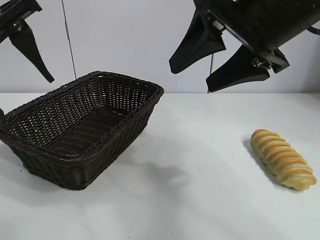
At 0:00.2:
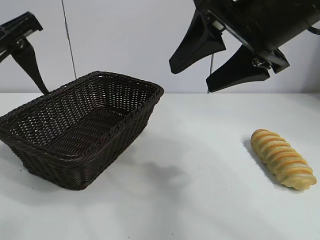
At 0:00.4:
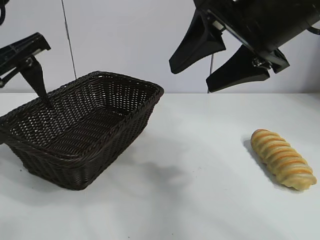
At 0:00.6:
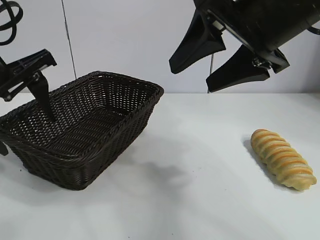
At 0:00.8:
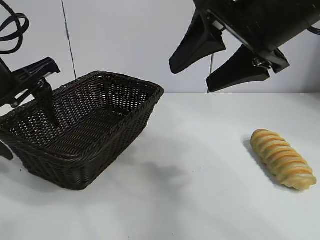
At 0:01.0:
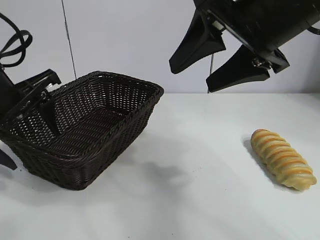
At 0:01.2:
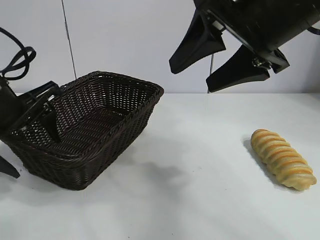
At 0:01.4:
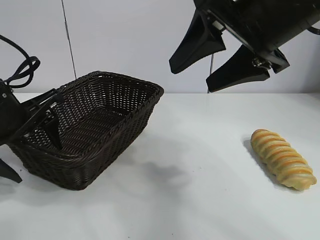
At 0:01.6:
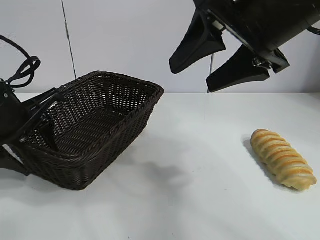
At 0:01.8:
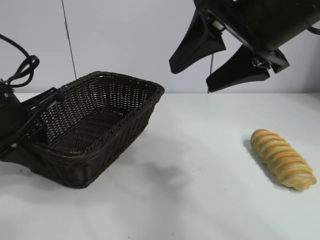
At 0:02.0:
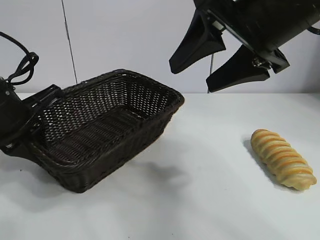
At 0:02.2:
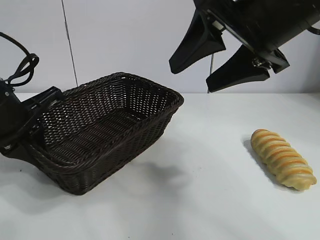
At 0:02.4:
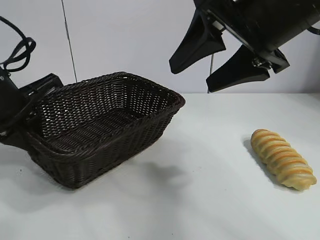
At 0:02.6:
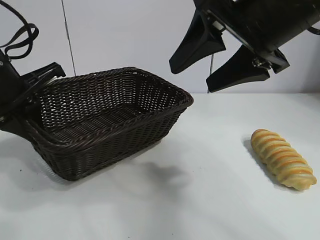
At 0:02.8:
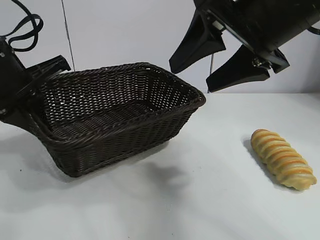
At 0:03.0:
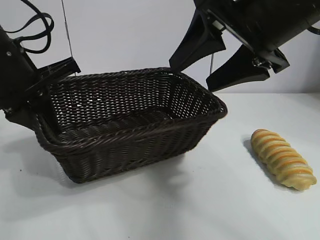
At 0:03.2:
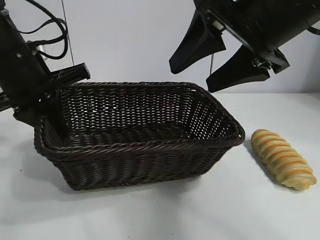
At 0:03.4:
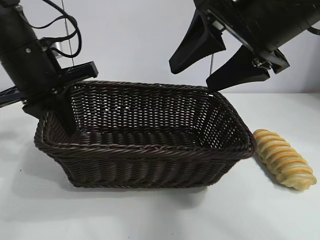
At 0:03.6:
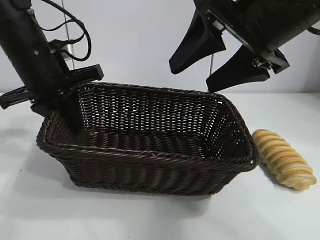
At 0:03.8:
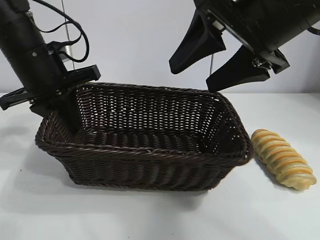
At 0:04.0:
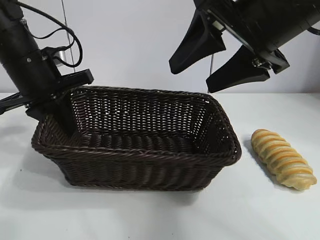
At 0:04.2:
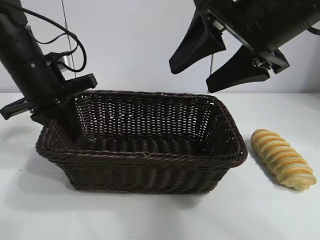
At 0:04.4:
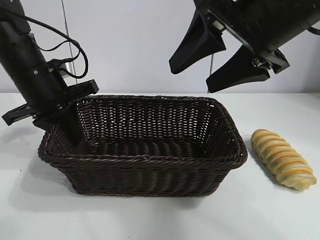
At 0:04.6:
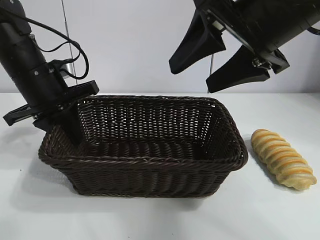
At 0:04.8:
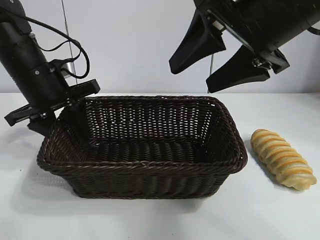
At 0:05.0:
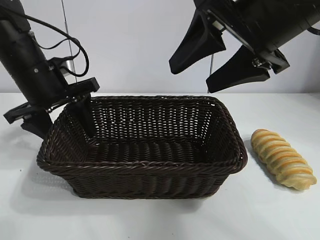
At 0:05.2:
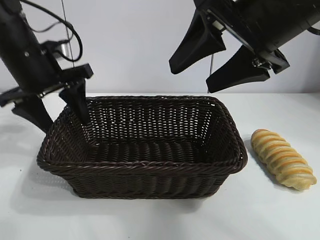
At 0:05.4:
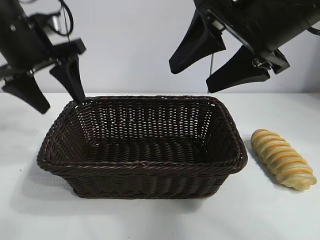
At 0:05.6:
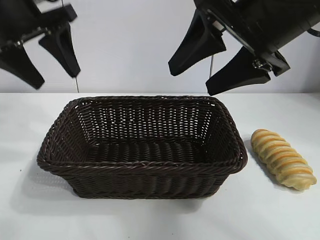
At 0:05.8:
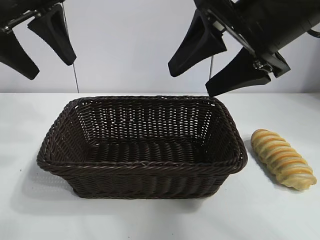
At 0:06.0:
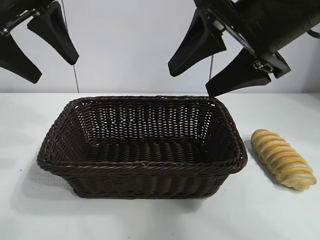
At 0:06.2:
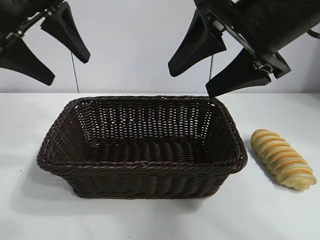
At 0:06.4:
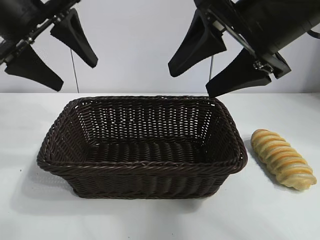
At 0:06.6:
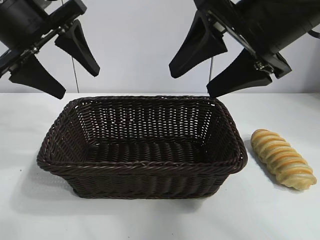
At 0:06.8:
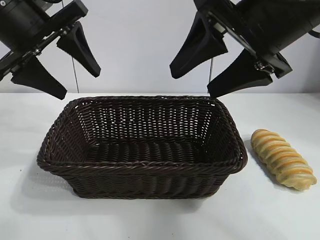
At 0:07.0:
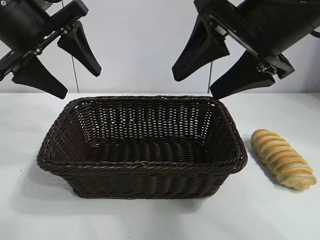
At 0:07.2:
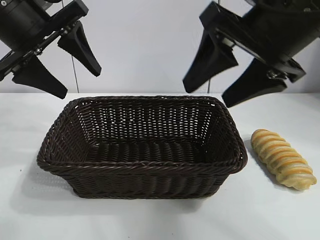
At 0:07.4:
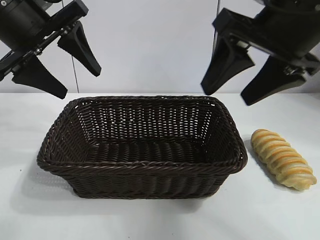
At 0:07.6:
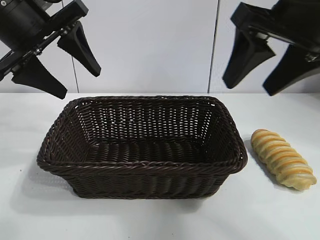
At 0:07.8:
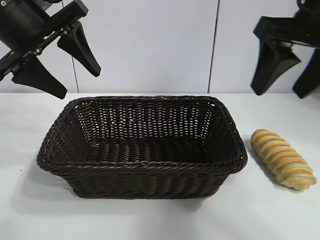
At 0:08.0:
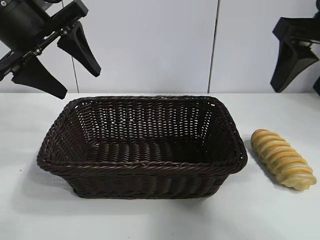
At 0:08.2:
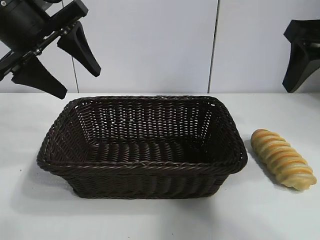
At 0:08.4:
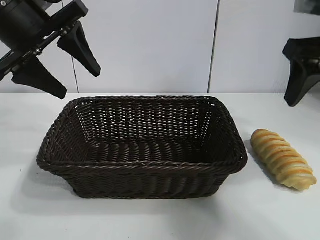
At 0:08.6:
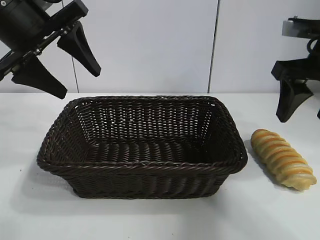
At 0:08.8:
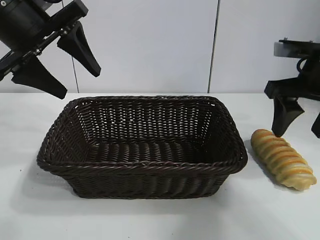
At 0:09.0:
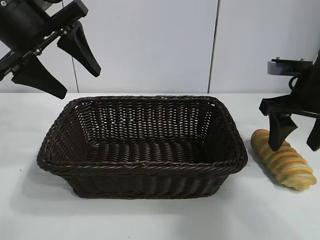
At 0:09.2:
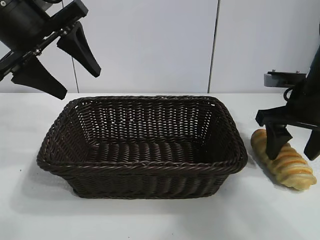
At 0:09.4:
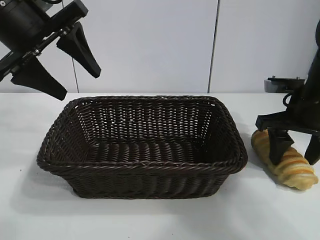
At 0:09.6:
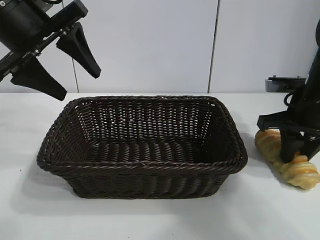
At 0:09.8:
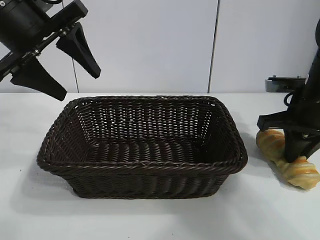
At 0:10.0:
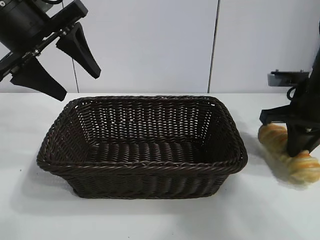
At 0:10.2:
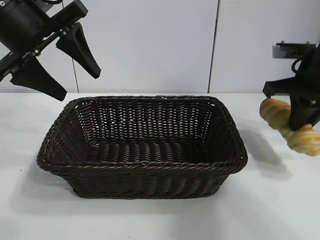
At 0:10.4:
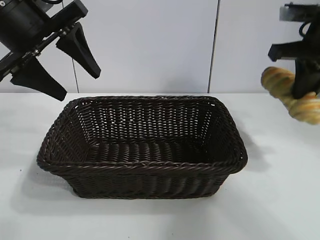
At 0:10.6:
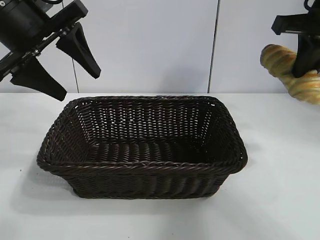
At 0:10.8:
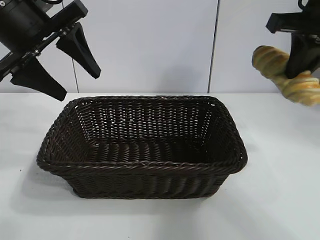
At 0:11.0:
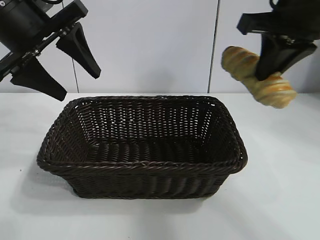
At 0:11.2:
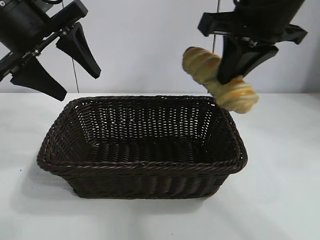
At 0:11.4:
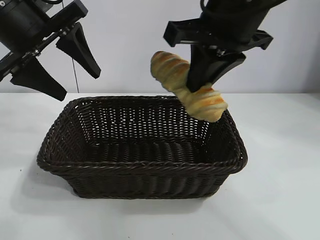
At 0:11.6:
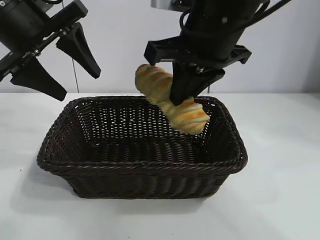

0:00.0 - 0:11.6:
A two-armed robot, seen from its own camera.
Task of the whole recording: pick up the long bread and put it into the basket.
Step, 0:00.0 - 0:01.8: Grasp the basket with the left gripper.
Step, 0:02.0 - 0:04.8: Place the basket in the center of the table with the left gripper.
Step, 0:05.2 - 0:09.8: Grasp the long bread with right gripper.

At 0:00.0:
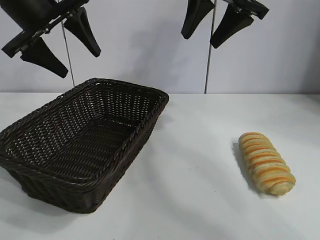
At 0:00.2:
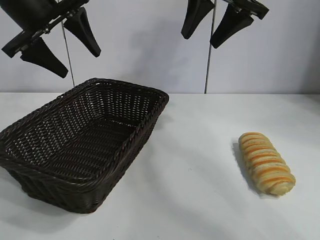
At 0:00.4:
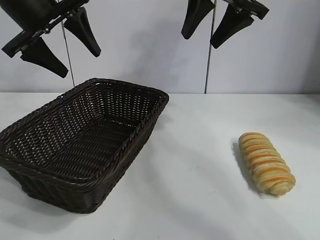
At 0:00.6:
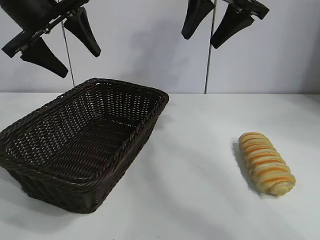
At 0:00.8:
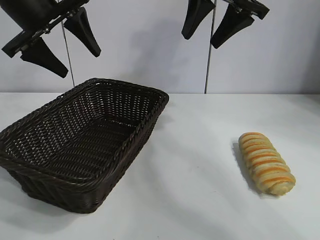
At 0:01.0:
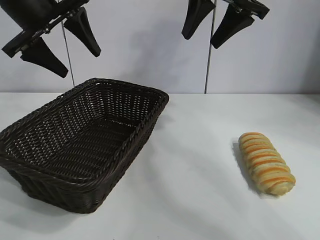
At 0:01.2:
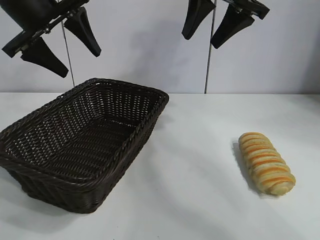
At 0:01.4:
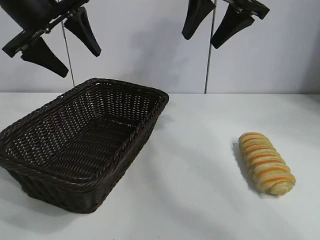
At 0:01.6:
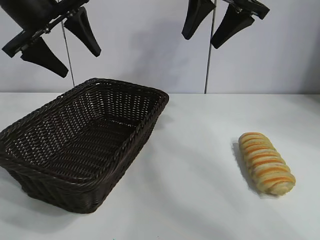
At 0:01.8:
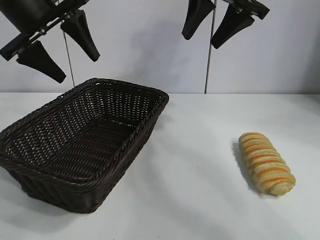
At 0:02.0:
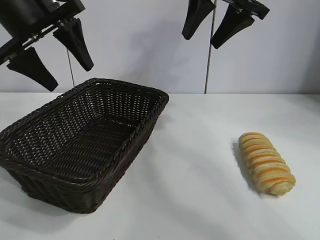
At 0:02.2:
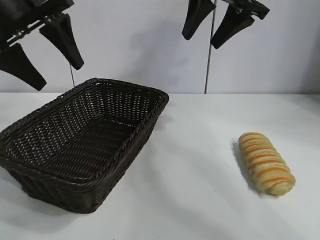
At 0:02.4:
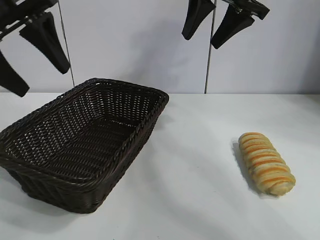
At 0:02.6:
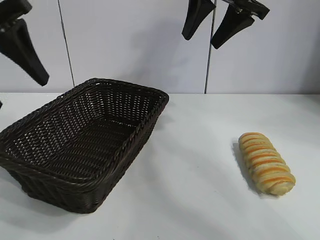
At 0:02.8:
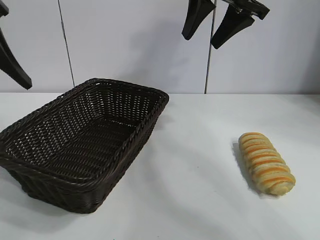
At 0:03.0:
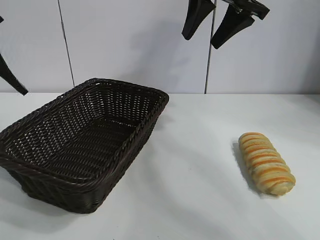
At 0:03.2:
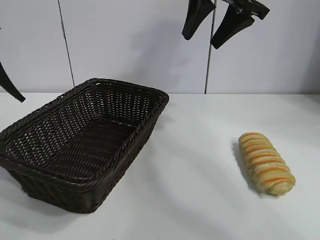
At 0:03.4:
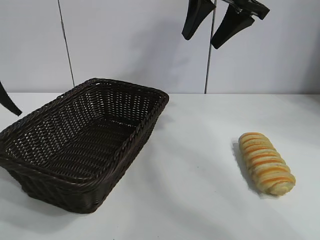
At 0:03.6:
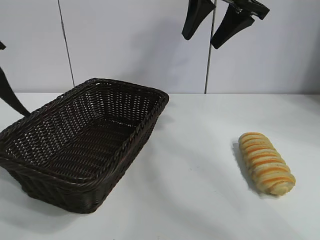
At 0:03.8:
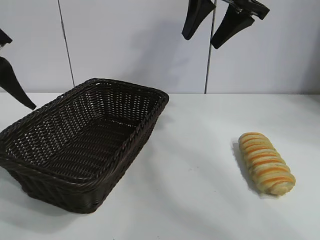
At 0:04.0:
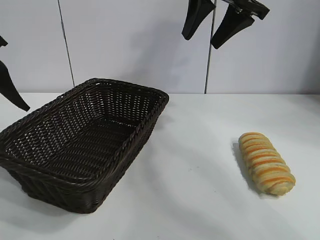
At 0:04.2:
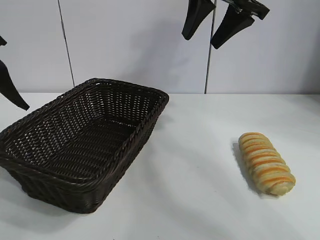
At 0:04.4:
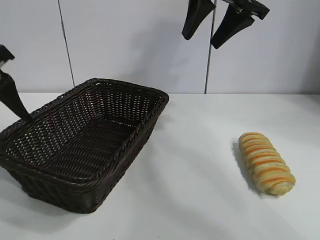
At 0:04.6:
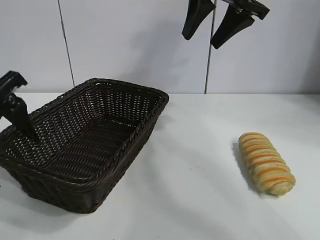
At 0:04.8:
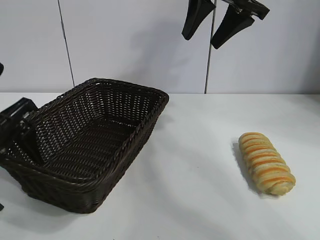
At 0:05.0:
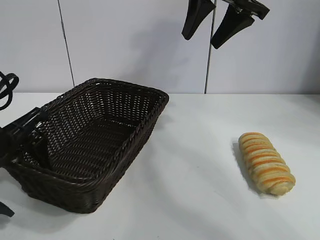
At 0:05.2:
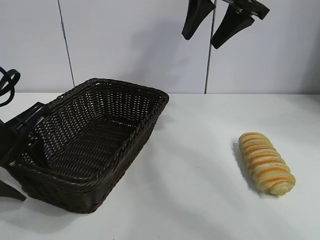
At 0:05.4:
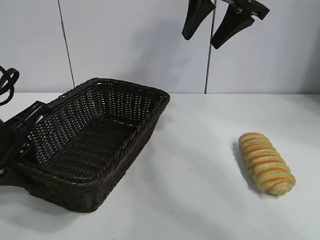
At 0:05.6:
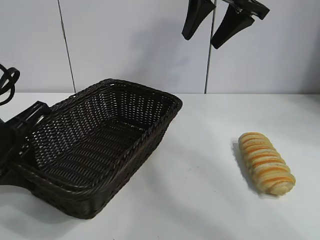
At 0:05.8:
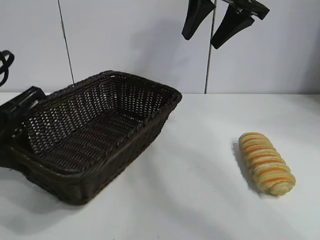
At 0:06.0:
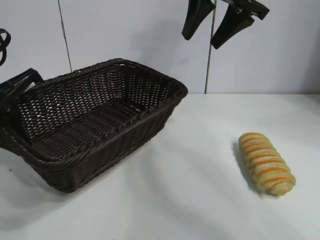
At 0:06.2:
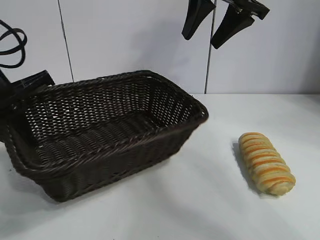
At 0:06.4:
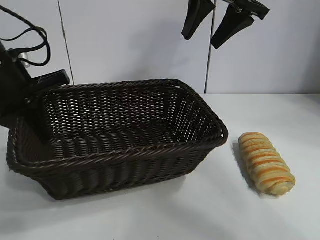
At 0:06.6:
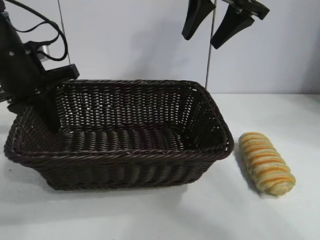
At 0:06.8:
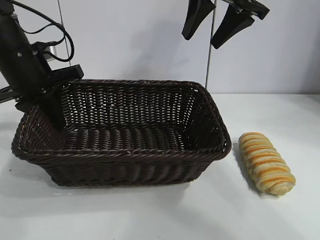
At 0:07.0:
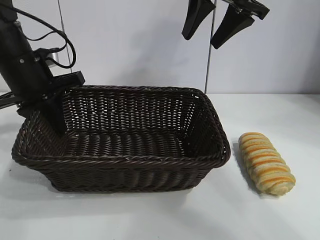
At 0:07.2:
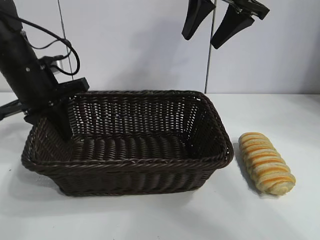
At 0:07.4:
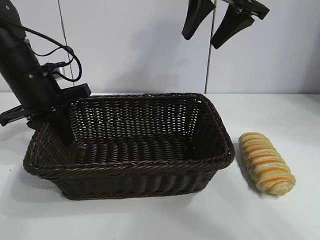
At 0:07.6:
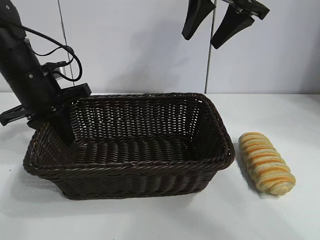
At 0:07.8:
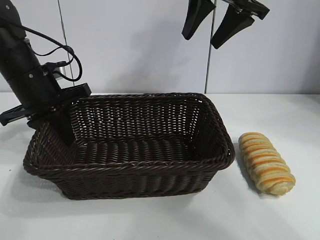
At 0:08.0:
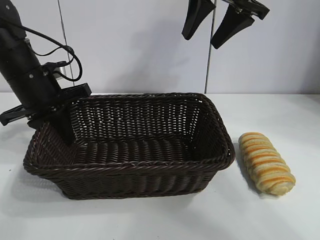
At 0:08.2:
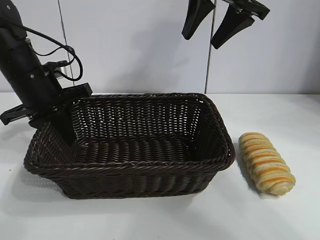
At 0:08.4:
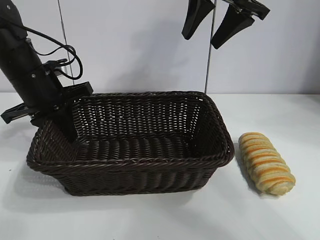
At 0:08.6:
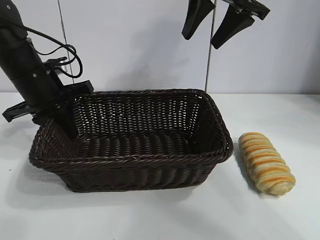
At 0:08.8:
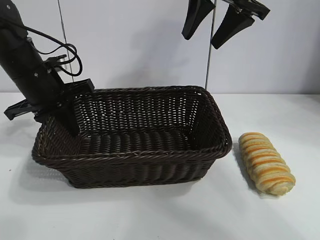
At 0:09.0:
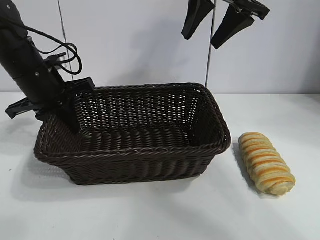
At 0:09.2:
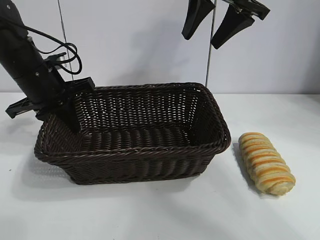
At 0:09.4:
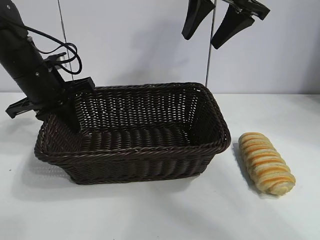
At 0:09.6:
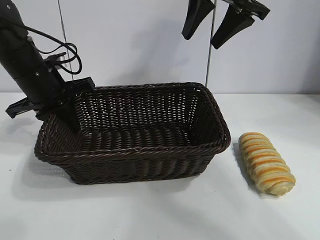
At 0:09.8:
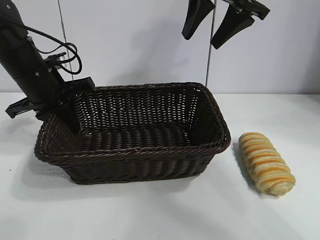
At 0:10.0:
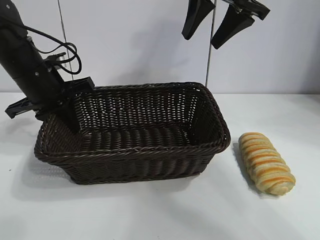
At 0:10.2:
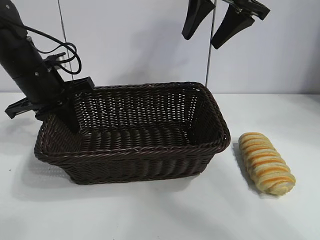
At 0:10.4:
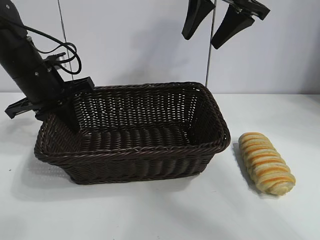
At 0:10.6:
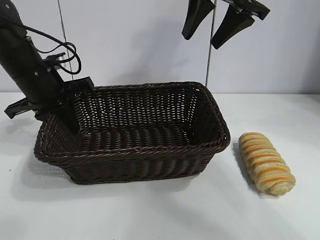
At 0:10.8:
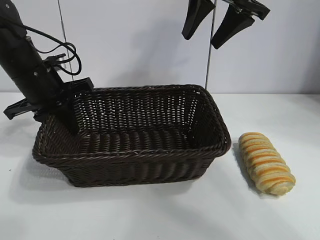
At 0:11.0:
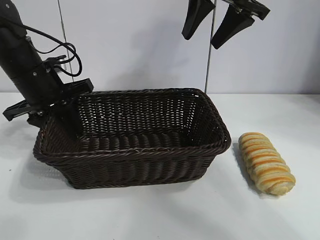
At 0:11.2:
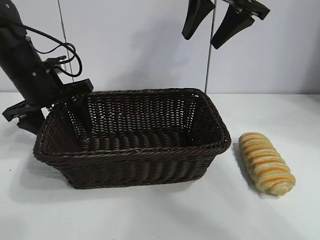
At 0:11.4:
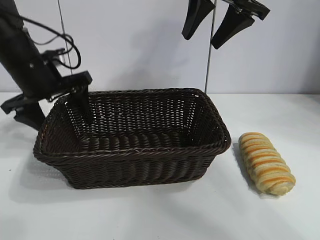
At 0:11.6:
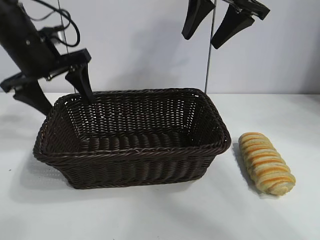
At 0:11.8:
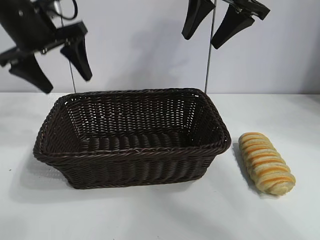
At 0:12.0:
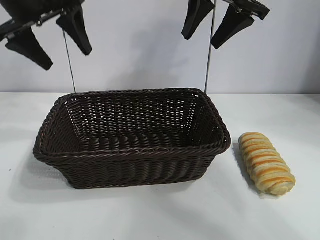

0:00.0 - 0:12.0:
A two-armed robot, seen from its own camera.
Task of the whole recording: pick up the long bread and put it into the basket.
Step, 0:01.8 - 0:05.4: Grasp the basket with the left gripper.
Step, 0:05.8 - 0:09.0: Place the basket in the center of the table with the left gripper.
Step, 0:10.8 - 0:11.2: Place the basket in the center of the table with the left gripper.
